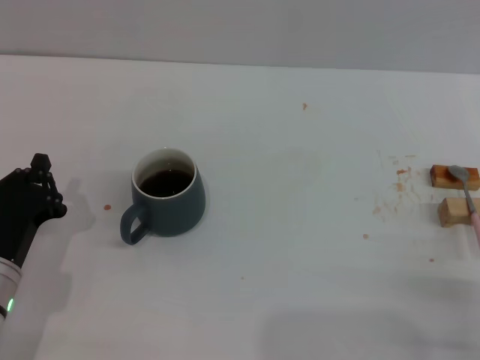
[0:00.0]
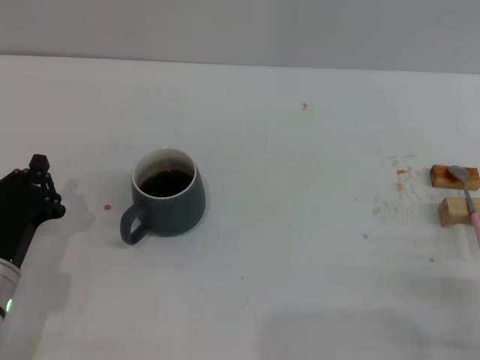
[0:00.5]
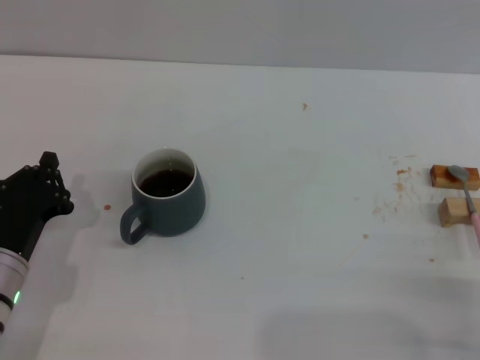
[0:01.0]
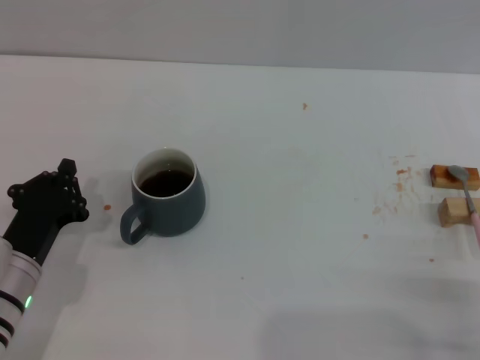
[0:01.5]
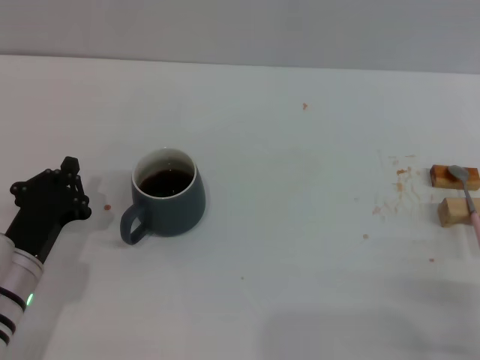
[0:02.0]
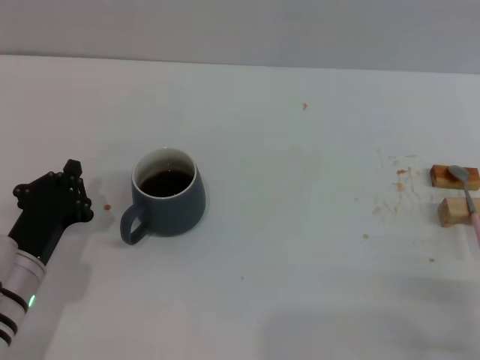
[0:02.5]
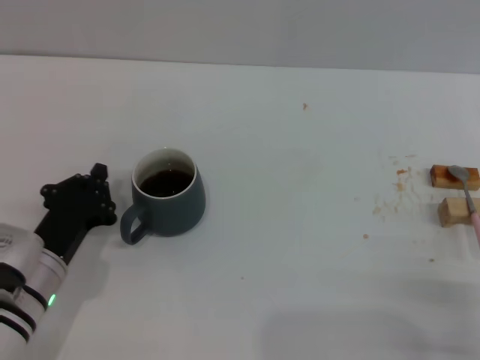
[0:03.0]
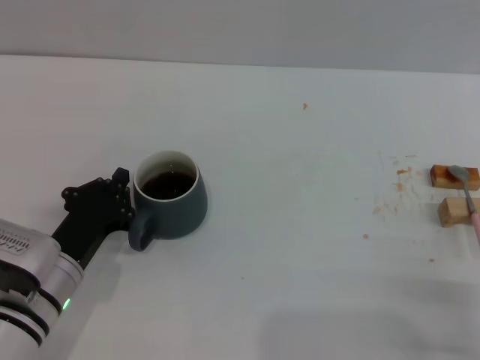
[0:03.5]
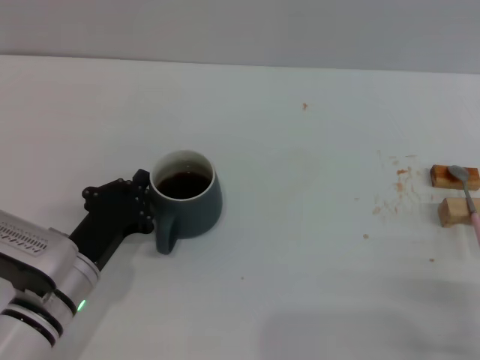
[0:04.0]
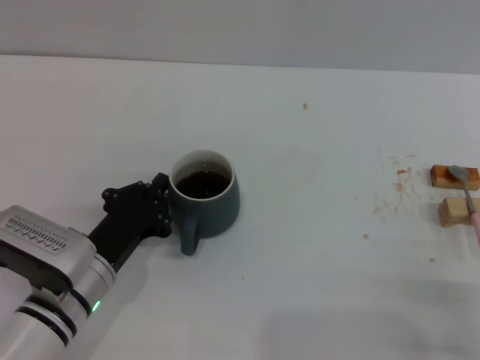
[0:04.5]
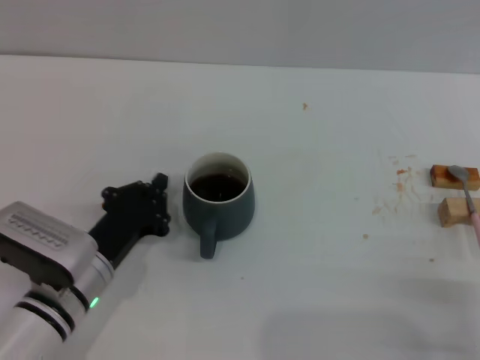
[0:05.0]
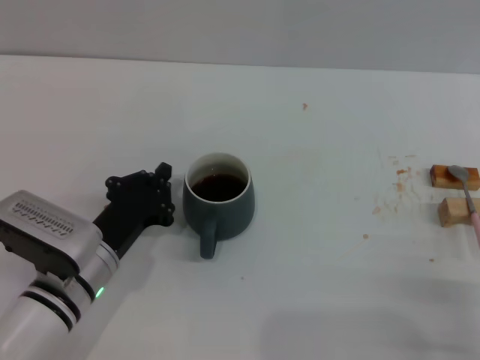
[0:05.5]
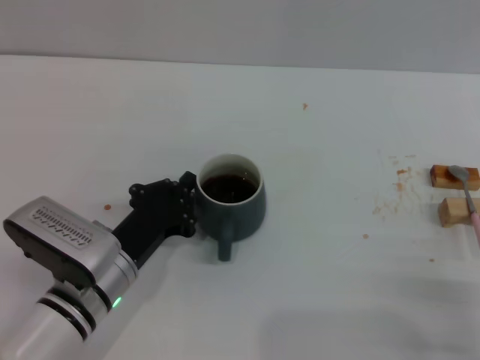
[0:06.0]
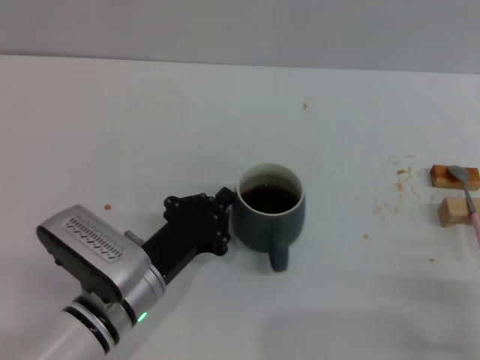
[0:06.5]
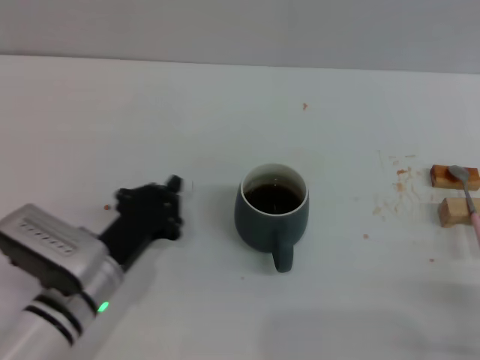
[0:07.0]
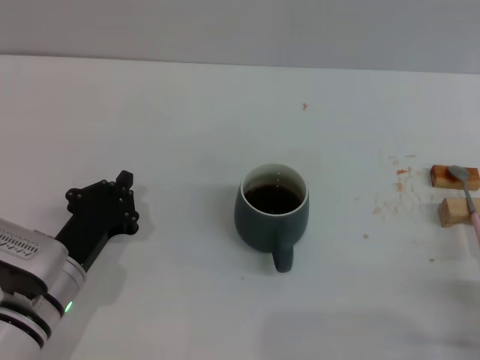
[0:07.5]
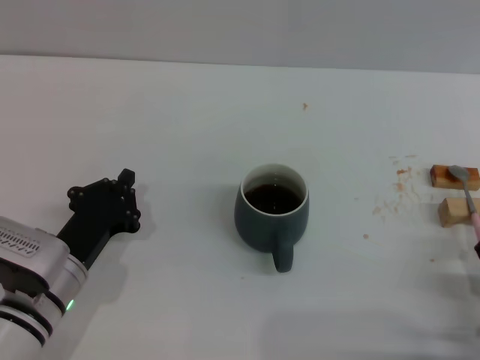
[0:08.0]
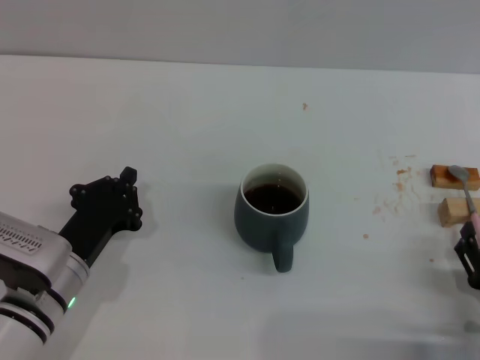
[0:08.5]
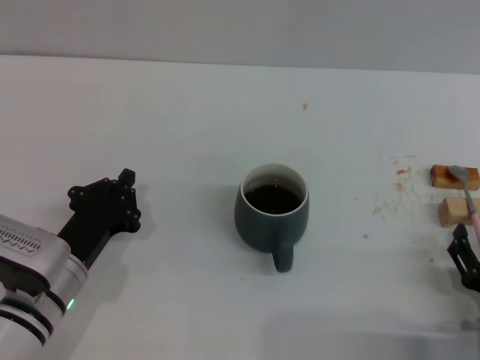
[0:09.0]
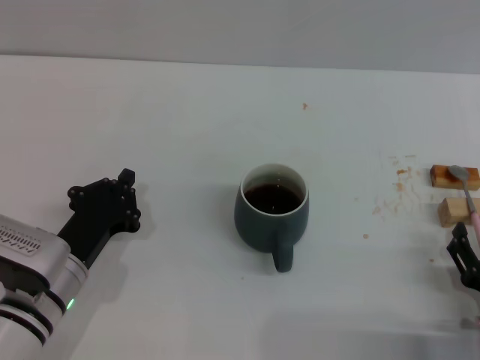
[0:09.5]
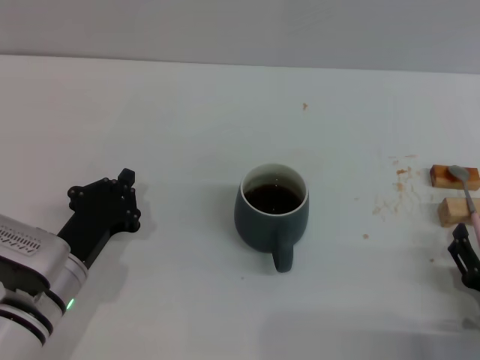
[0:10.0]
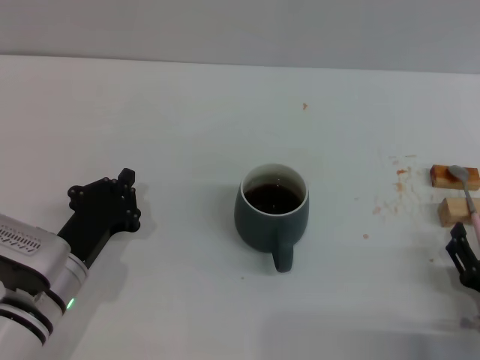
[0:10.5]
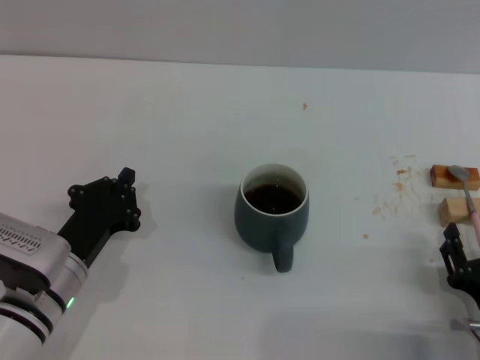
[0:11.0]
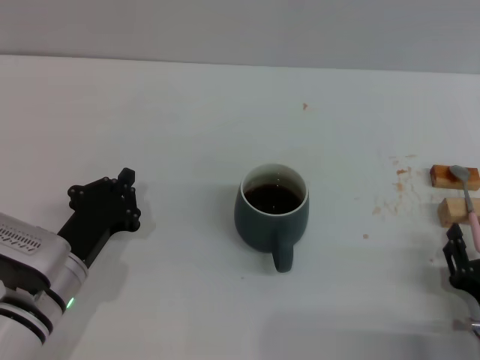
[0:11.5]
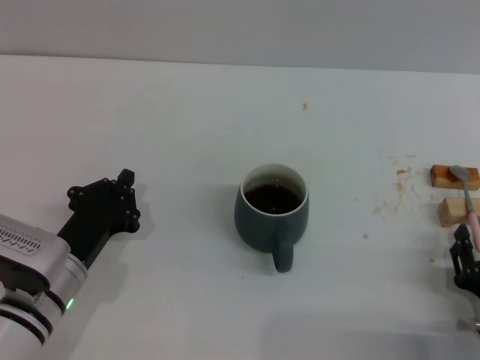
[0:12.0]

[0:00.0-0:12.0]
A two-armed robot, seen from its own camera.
Task of the whole recording: Move the grey cup to the center, lift the pink spoon, stir it three times in the cup, and put the spoon into the cup.
Step, 0:00.0 to 0:09.0: Move the cup with coffee to the center of view with the left gripper.
0:00.0 to 0:04.0: The grippers make only small movements.
0:04.0 to 0:08.0: There are only small adjustments of the grippers.
0:08.0 to 0:10.0: The grippers make only small movements.

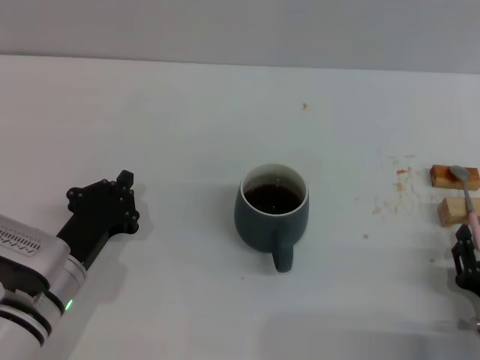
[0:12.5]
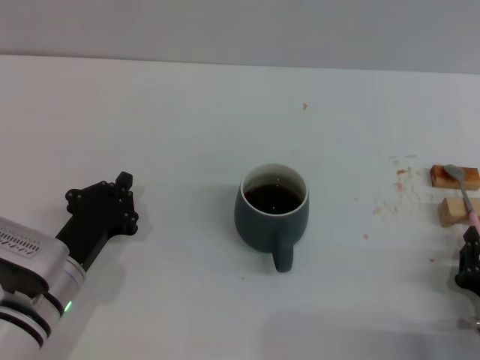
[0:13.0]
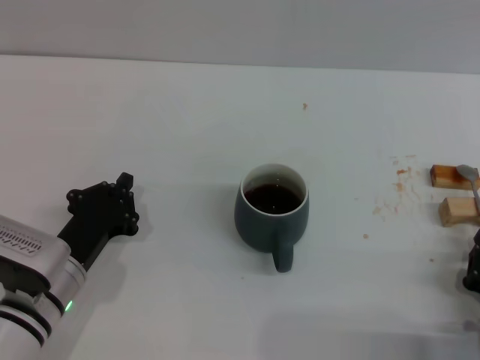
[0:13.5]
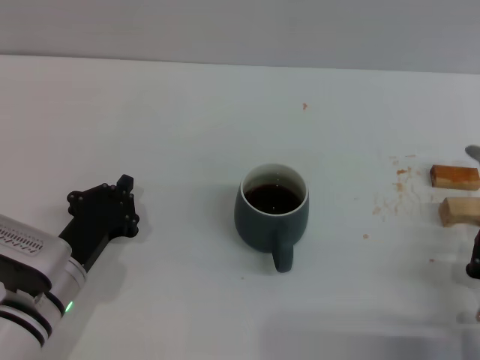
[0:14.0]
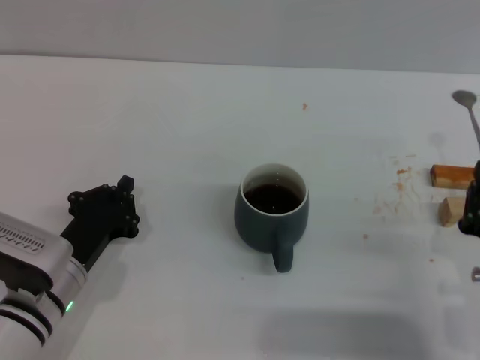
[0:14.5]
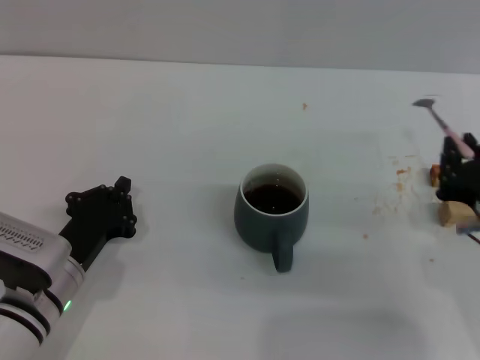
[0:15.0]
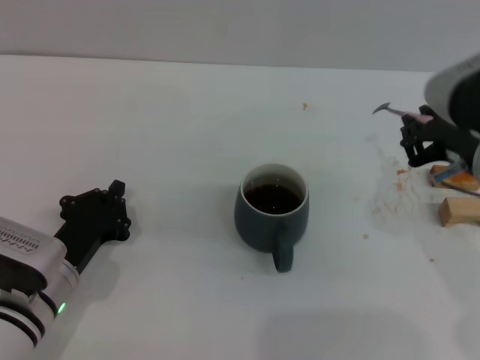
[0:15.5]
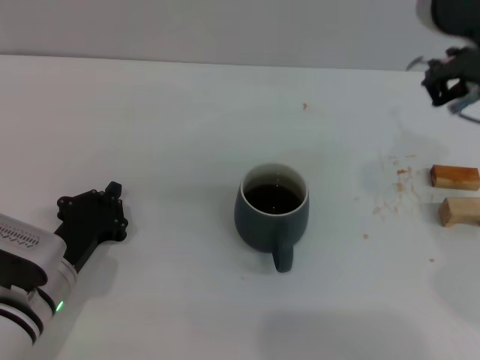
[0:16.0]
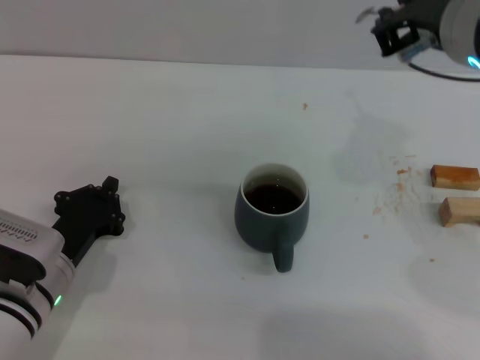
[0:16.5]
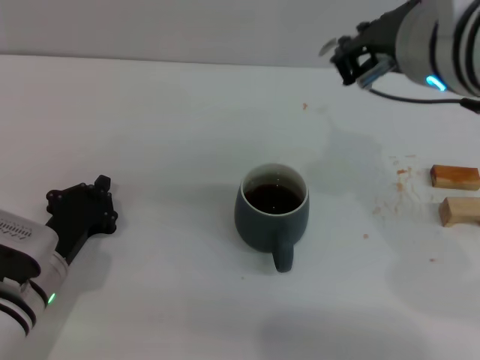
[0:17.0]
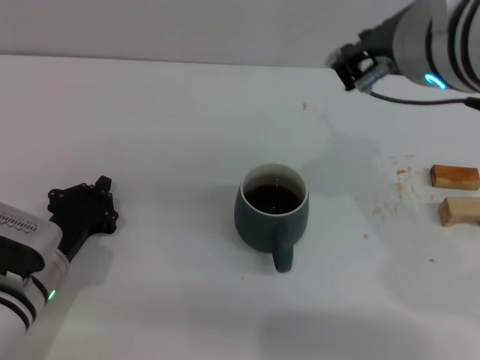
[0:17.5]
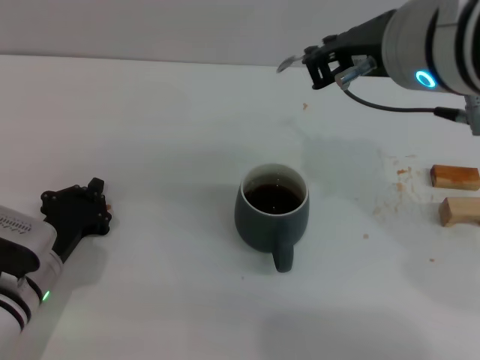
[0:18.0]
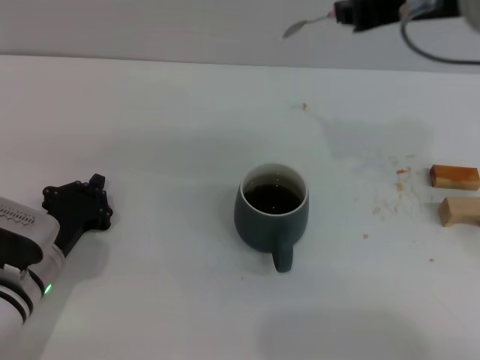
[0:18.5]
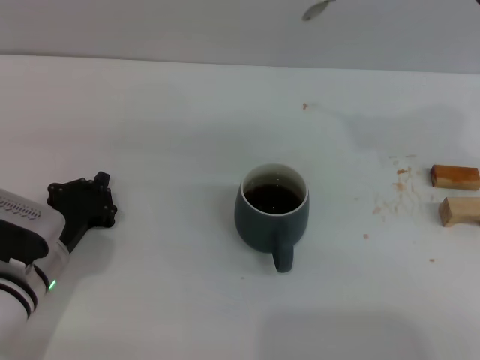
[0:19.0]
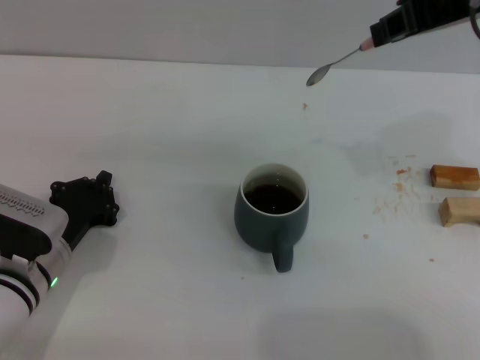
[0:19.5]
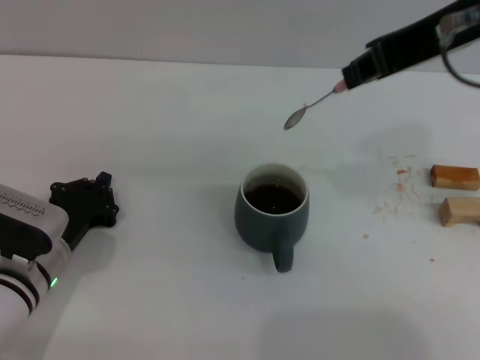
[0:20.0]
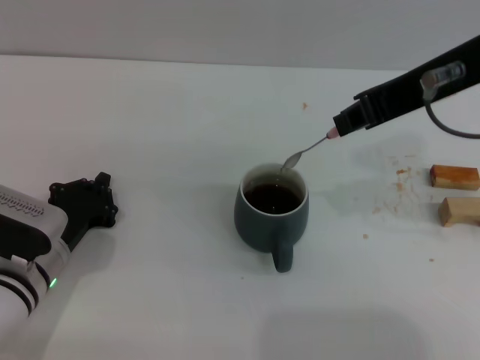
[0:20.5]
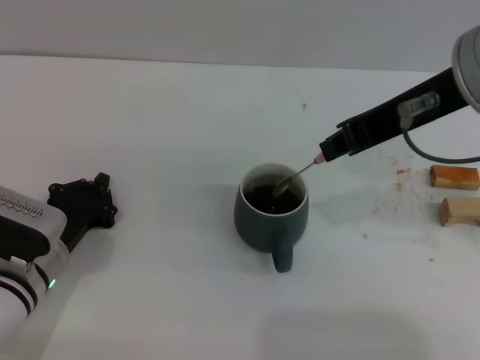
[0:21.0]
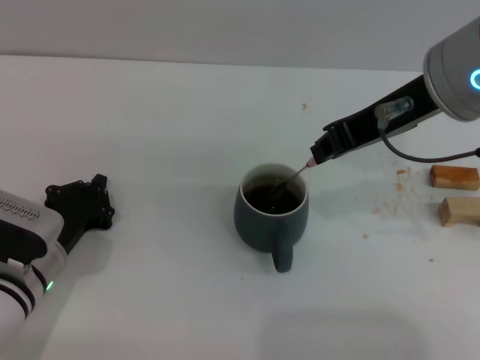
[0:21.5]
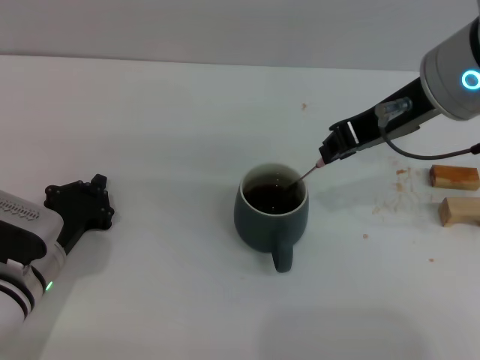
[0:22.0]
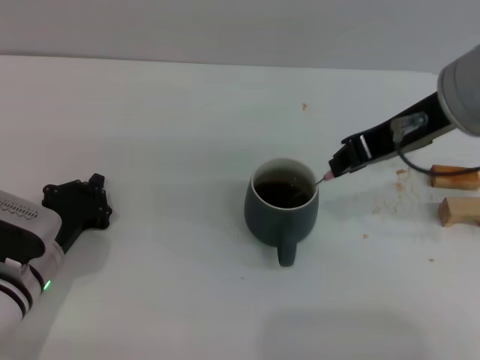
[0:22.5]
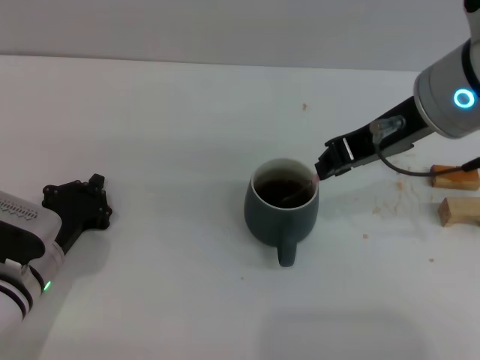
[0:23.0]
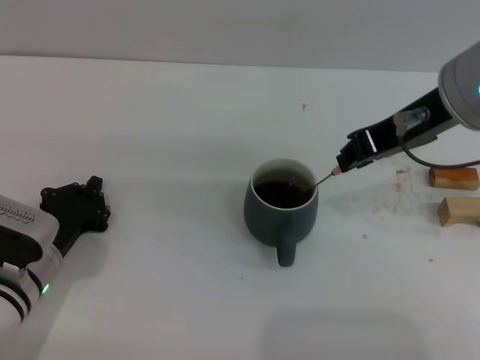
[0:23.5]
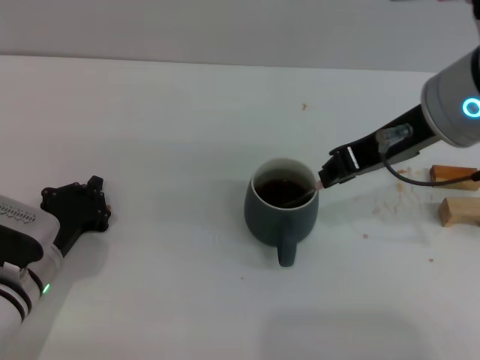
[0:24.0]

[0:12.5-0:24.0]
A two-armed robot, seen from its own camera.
Task of the whole recording: Move the grey cup to the center, lift the pink spoon, stir it three times in the cup, and put the spoon into the cup.
0:12.5 to 0:14.5: The right gripper shifts roughly 5 cm upward, and closes.
0:14.5 to 0:16.5: The right gripper heads upward, forward and to the left, covering approximately 30 cm.
0:20.0 to 0:22.0: The right gripper goes some 10 cm downward.
0:22.0 to 0:24.0: The grippers move only a little.

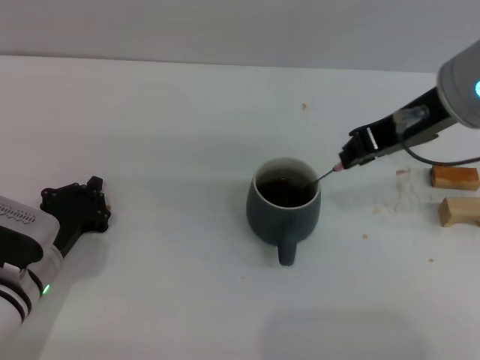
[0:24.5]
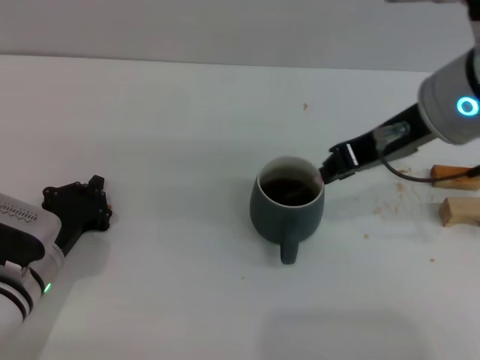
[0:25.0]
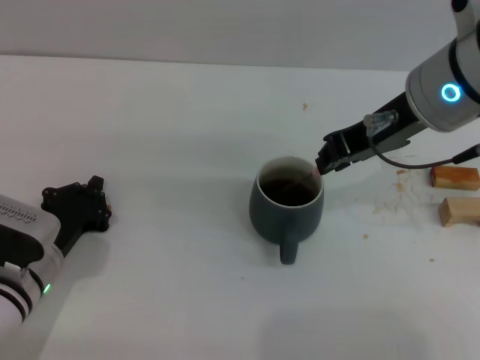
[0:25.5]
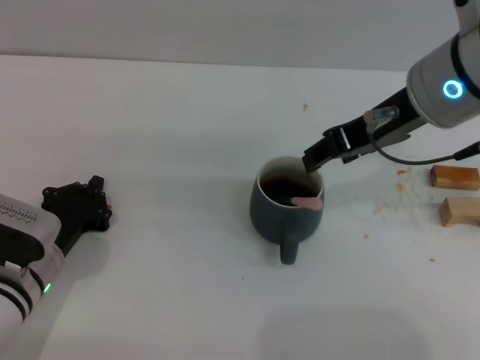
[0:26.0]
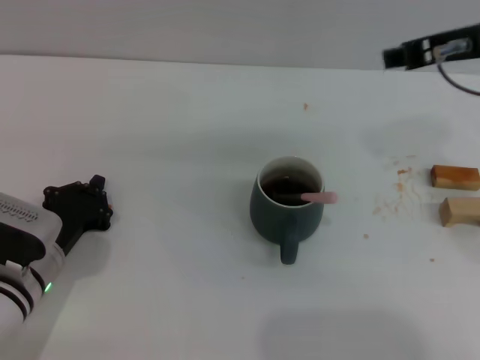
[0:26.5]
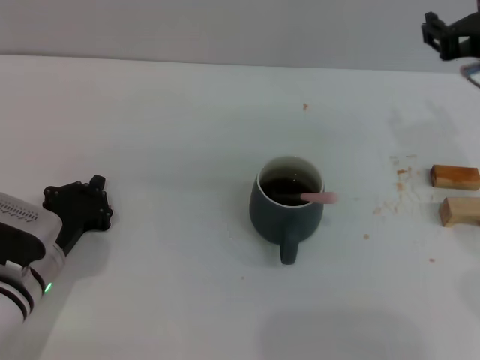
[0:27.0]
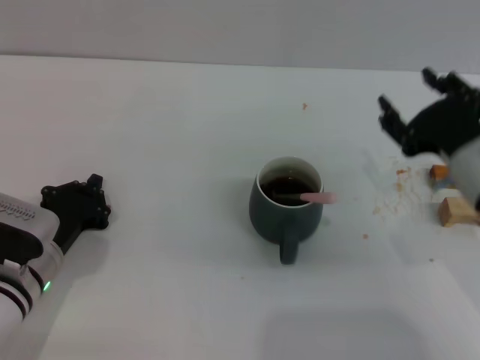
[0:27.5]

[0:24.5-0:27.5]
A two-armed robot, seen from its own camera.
Task of the whole recording: Move the grey cup to the center, lift the pink spoon, stir it three times in the cup, and put the spoon into the cup.
0:24.5 to 0:26.0: The right gripper opens.
0:26.0 to 0:27.5: The right gripper travels downward, to the right and backward by some 15 cm.
